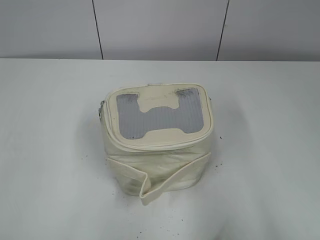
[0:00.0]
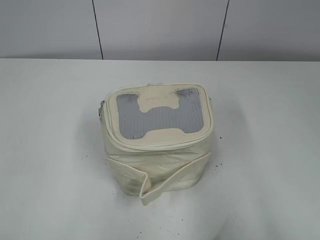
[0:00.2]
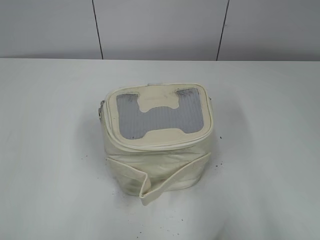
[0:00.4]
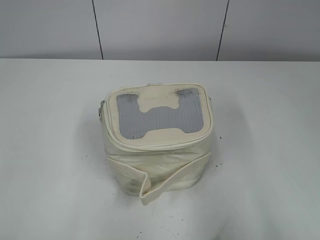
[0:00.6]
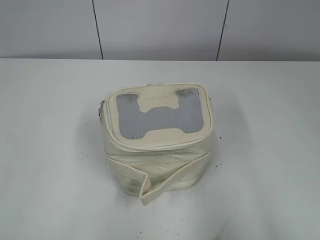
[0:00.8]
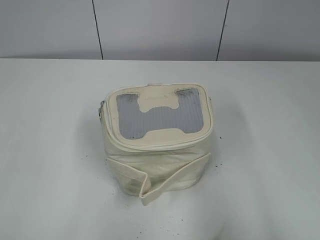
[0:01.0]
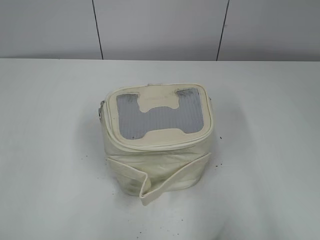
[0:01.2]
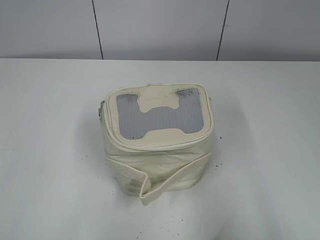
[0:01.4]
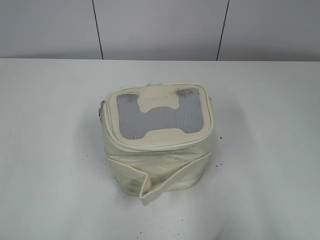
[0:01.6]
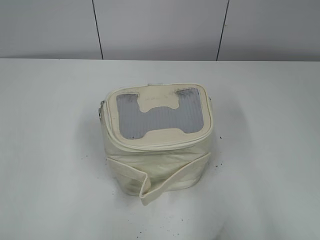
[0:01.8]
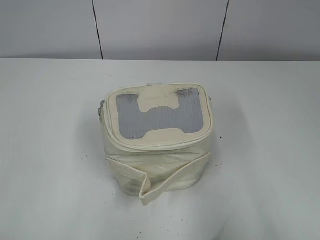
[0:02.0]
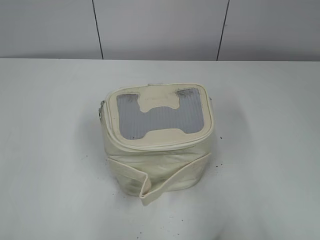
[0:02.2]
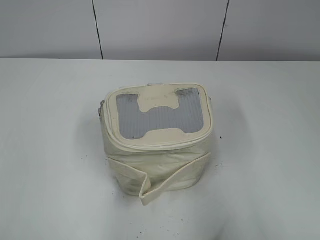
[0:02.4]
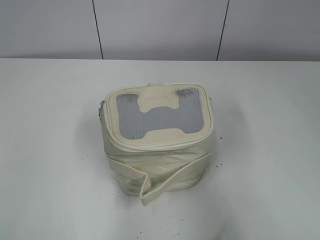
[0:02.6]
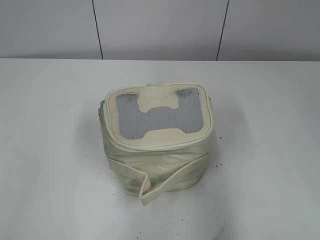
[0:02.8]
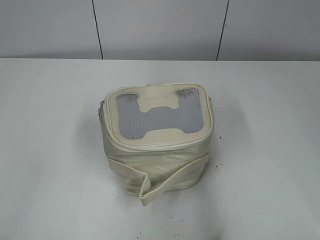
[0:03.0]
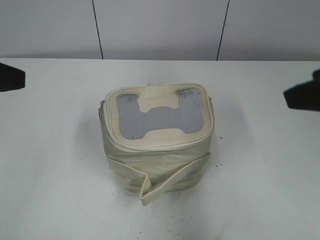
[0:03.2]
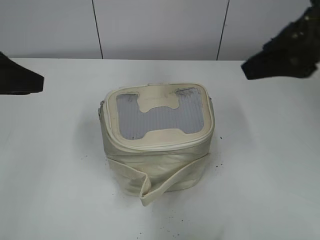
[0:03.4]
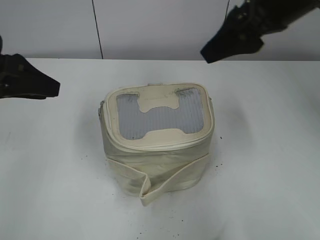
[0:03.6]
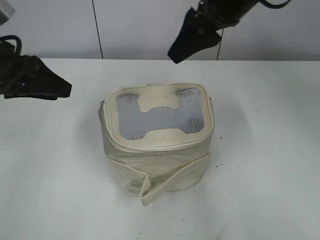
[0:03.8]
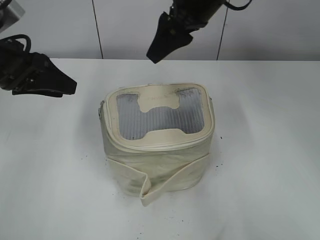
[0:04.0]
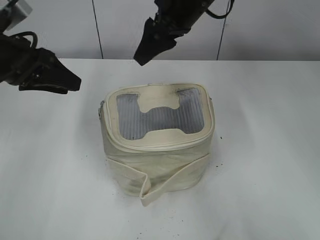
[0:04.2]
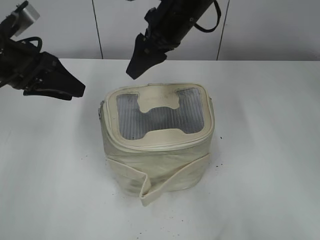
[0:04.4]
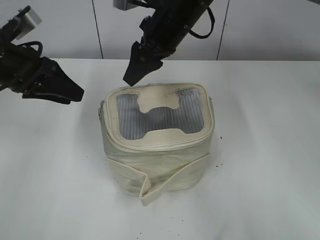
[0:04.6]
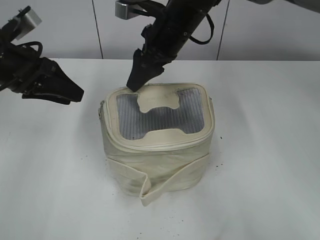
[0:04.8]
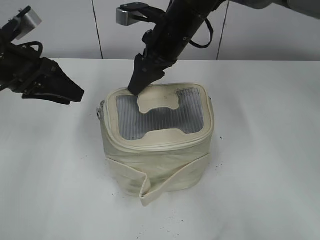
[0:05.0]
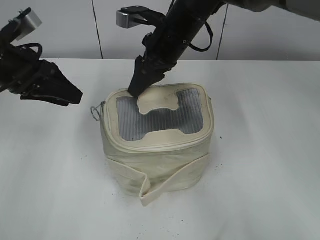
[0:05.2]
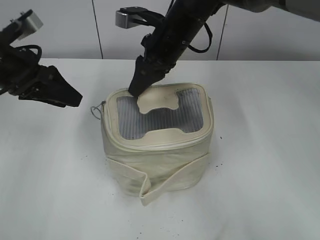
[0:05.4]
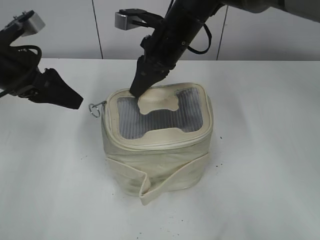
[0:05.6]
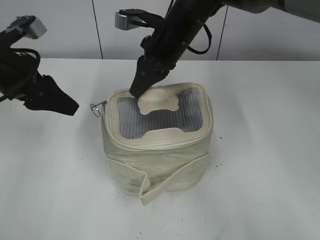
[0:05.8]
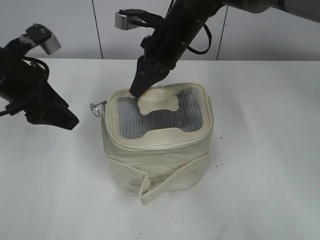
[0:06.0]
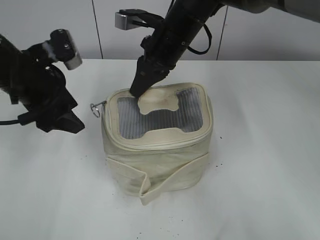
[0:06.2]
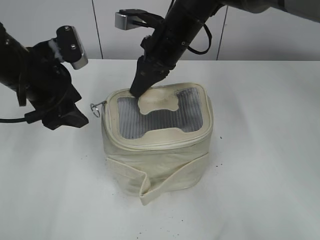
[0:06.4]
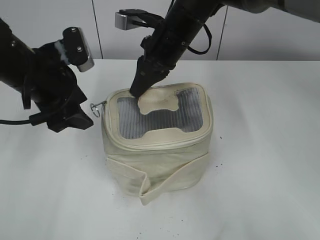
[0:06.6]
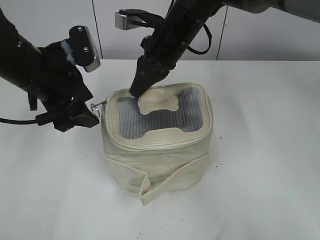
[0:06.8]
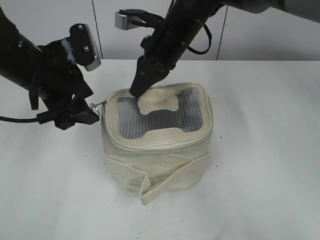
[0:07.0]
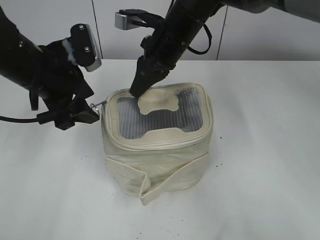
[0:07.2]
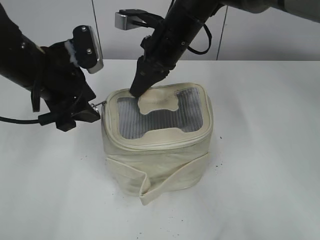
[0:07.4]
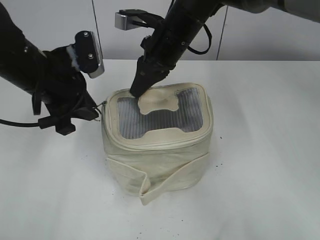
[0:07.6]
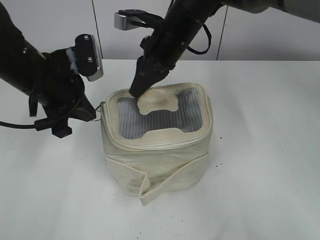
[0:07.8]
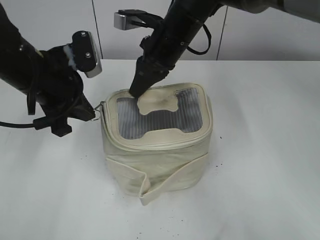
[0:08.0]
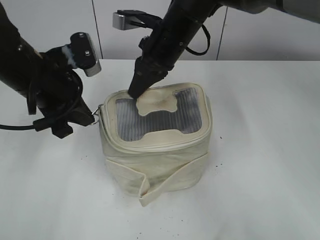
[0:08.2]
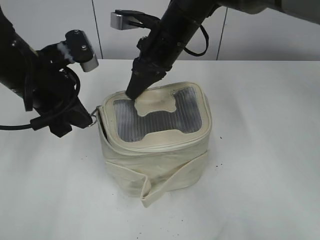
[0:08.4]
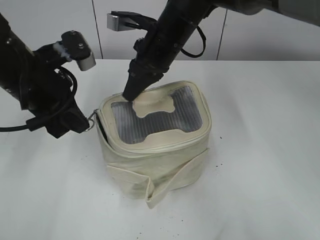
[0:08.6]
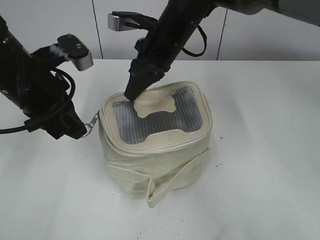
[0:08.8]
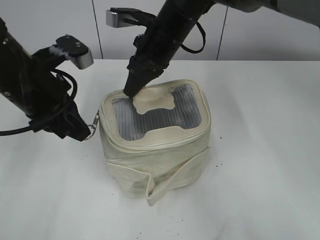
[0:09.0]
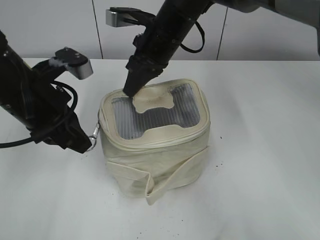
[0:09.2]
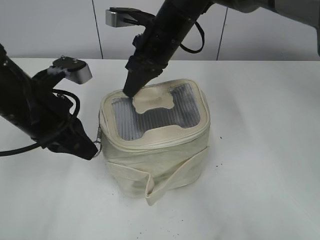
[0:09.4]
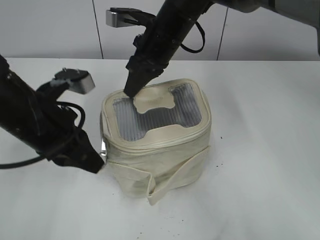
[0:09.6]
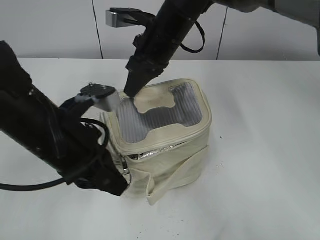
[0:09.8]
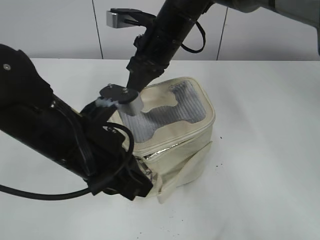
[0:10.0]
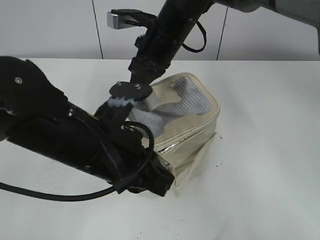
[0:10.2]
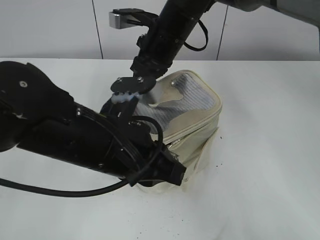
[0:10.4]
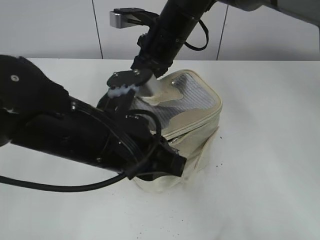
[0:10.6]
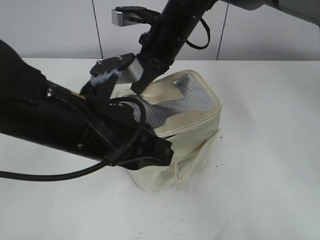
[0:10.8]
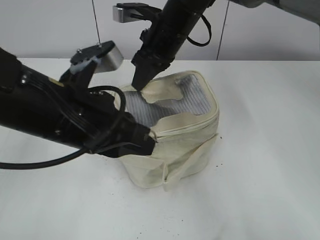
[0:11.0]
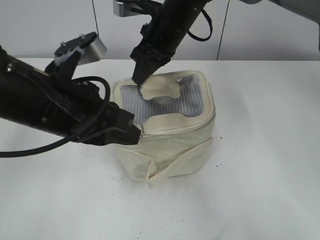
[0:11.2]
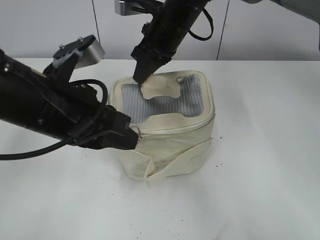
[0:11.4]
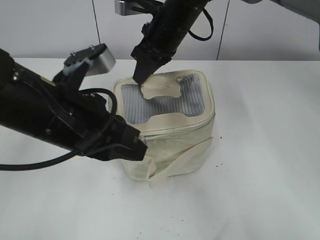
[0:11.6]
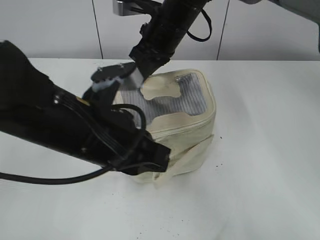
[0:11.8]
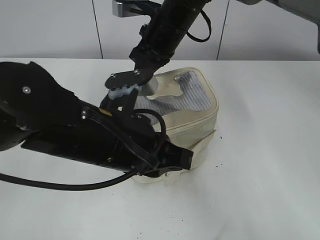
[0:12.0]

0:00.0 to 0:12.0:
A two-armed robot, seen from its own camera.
0:01.6 to 0:03.0: The grippers both shift forward by roughly 15 cm.
0:03.0 to 0:04.4: The right gripper shifts roughly 35 cm forward and to the left. Meanwhile the left gripper is displaced forward and downward by some 20 cm.
0:04.4 to 0:06.0: The left gripper opens its fingers. Meanwhile the right gripper closes up.
0:06.0 to 0:07.6: The left gripper moves to the right, approximately 5 cm, and closes.
0:09.0 to 0:10.4: The left gripper shifts some 15 cm to the right and backward.

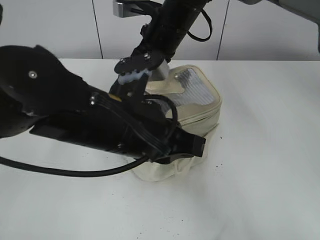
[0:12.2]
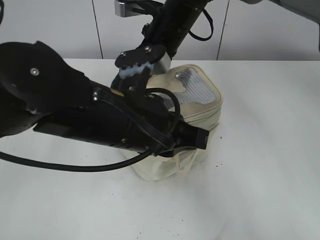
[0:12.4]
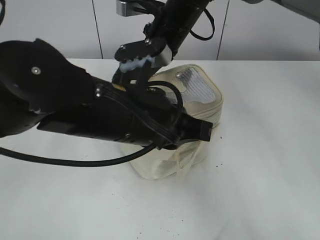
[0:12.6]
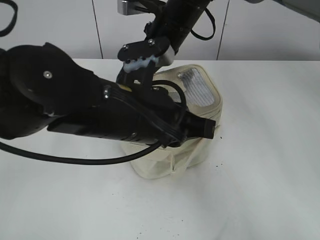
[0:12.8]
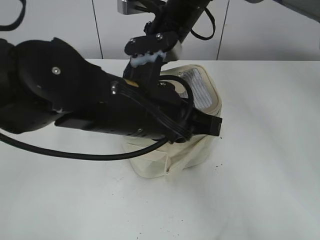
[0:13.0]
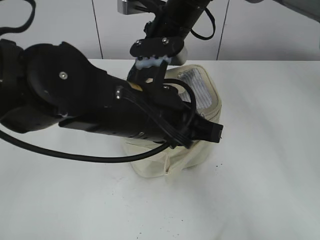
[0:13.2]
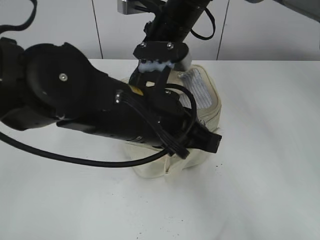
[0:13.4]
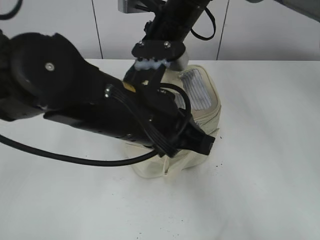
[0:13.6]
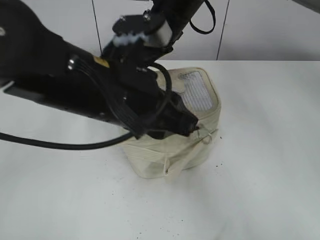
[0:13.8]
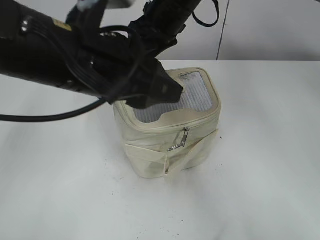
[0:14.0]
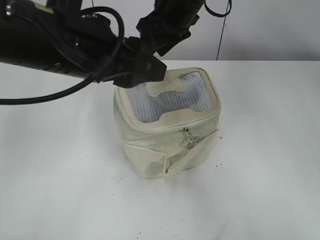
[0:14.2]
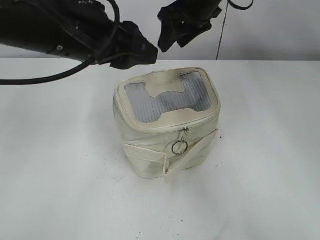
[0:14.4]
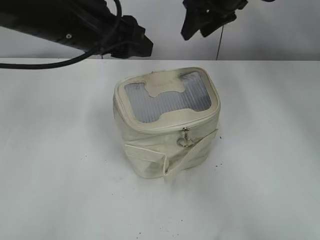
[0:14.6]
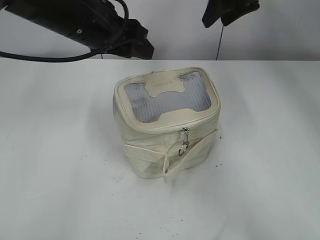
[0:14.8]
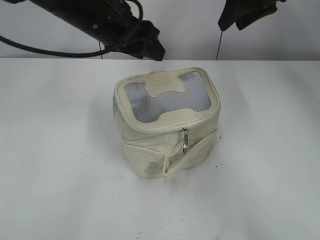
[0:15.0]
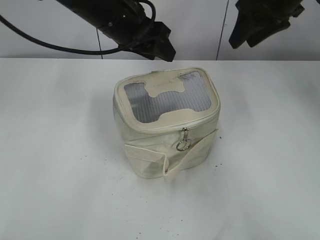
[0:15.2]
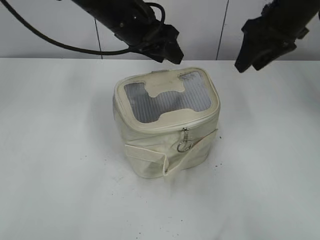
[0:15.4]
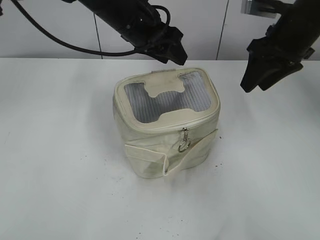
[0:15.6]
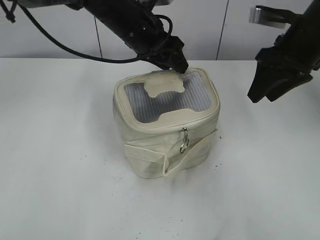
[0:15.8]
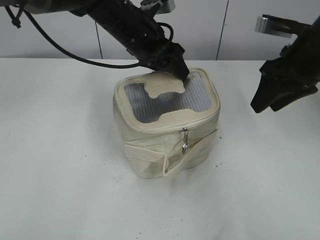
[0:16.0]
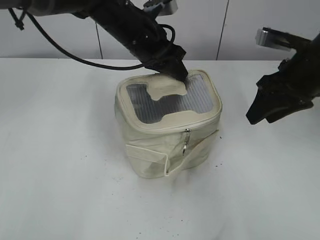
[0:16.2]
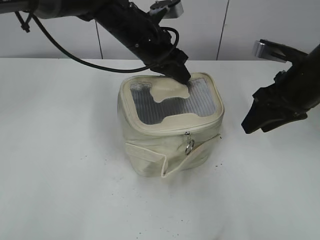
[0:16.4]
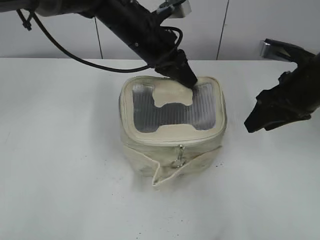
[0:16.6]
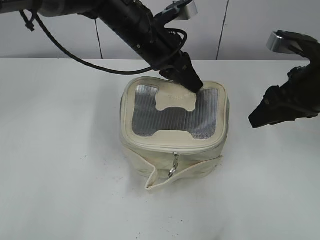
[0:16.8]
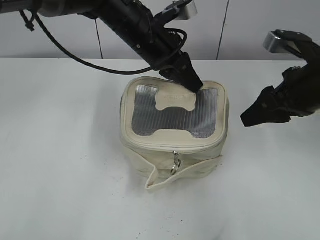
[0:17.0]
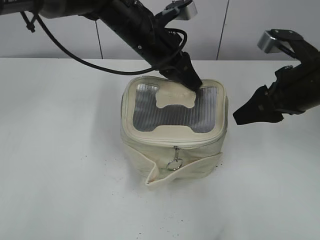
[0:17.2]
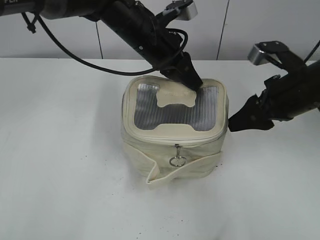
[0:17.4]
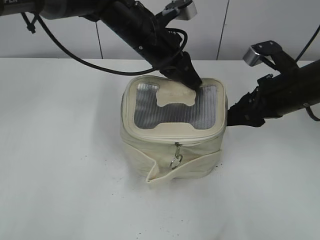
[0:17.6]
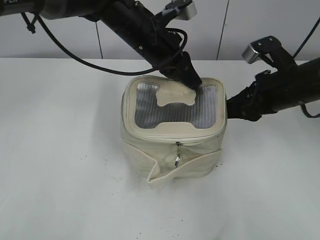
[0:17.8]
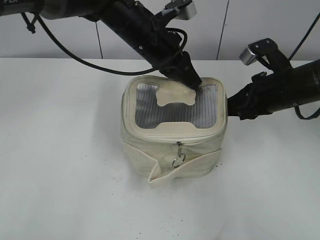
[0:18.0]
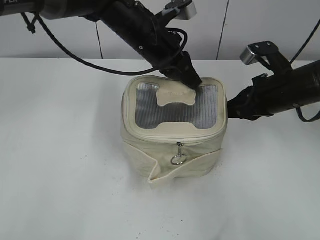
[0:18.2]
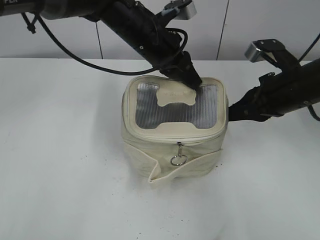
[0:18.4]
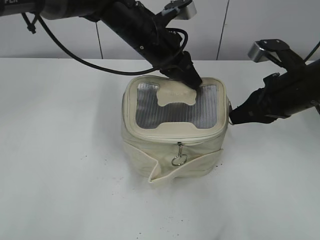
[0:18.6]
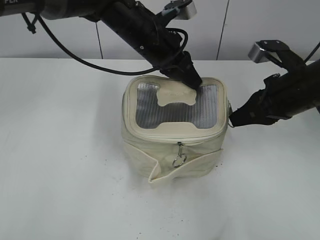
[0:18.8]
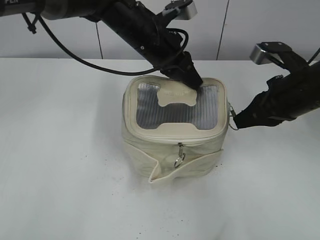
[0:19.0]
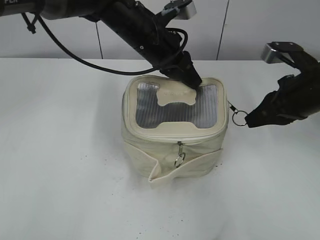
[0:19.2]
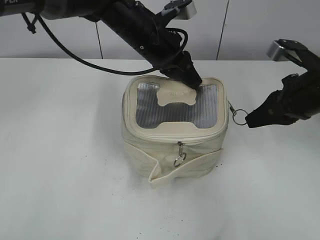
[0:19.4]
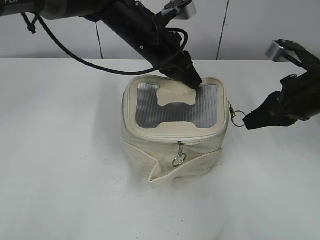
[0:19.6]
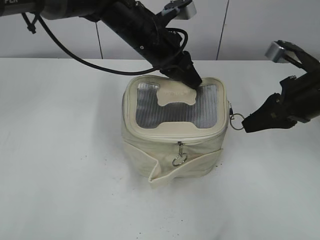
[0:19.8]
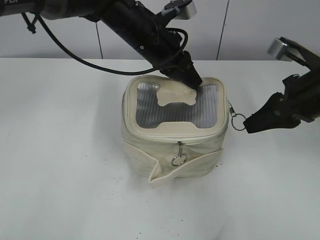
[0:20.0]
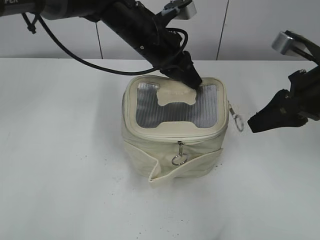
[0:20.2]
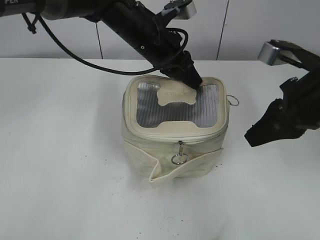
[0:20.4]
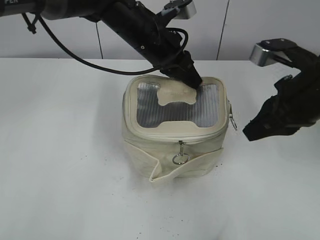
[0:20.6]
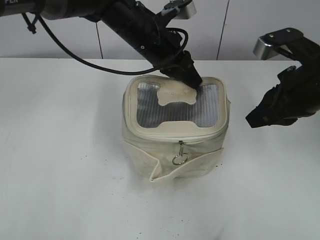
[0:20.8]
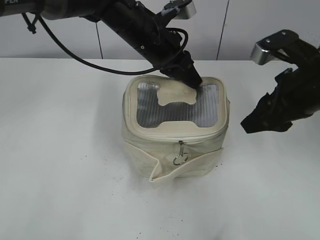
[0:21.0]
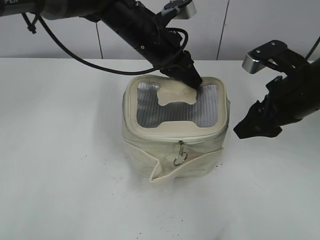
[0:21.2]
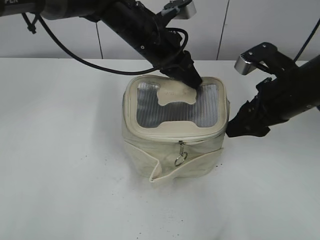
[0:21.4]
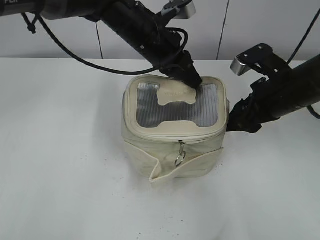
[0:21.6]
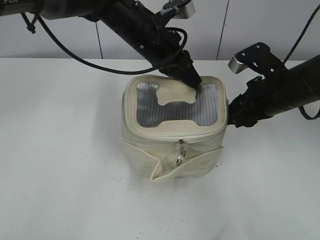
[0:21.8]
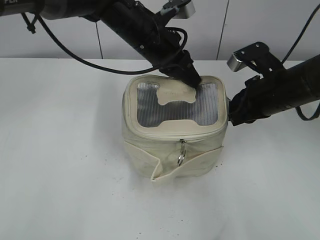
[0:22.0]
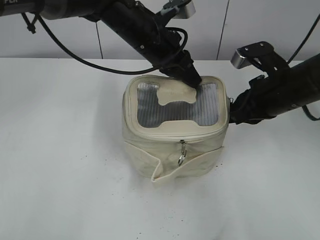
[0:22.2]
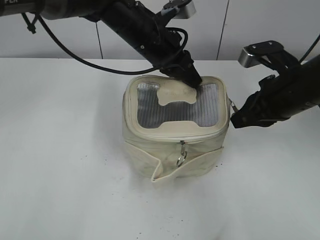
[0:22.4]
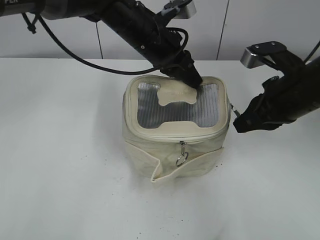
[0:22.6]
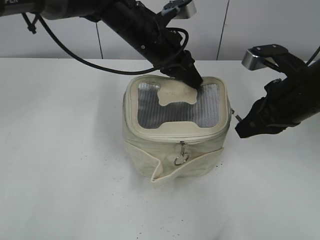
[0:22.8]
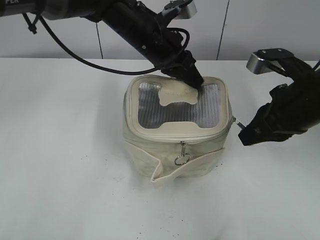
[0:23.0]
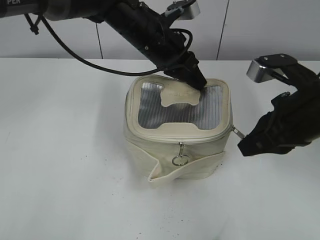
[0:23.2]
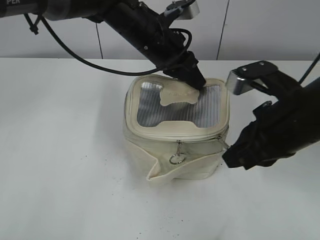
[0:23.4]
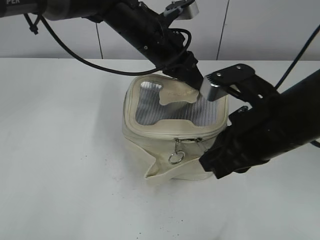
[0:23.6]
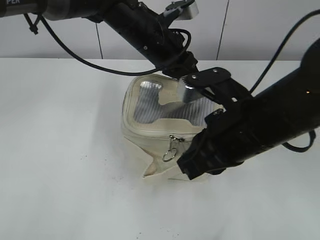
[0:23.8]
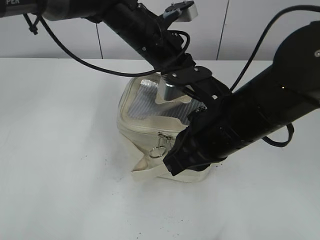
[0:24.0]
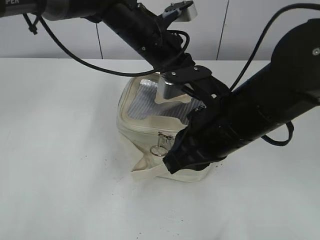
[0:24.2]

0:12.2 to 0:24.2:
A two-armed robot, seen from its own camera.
Step, 0:13.2 to 0:14.2: Hold the bag with your right hand.
0:12.2 to 0:13.8: The right gripper opens up, while the left gripper opens up.
0:13.8 to 0:15.2: The left gripper travels forward by some 15 cm, and opens; the right gripper shifts some 20 cm to the right.
0:15.2 to 0:16.6: The left gripper ends up roughly 5 cm from where it was, and closes. The right gripper goes about 15 cm backward and downward.
0:16.6 to 0:18.2: The right gripper closes.
0:18.2 to 0:19.8: There are only small adjustments of the grippers.
0:19.8 to 0:21.2: The right gripper opens its fingers.
0:21.2 to 0:22.6: The right gripper closes its fingers.
0:22.6 to 0:24.2: The right gripper shifts about 15 cm to the left and backward.
